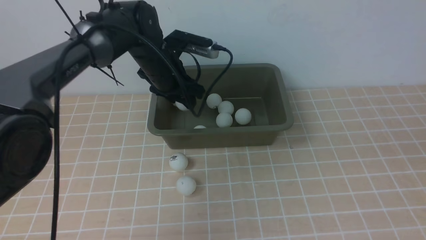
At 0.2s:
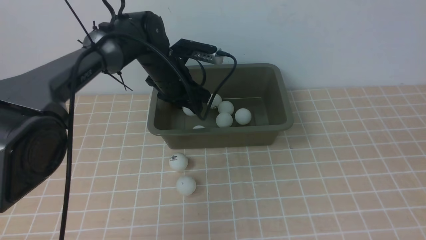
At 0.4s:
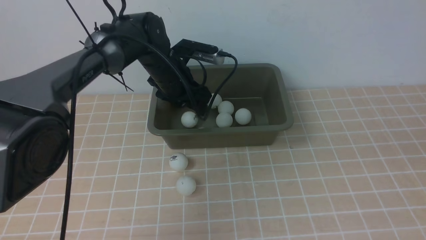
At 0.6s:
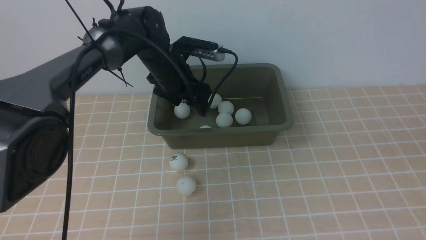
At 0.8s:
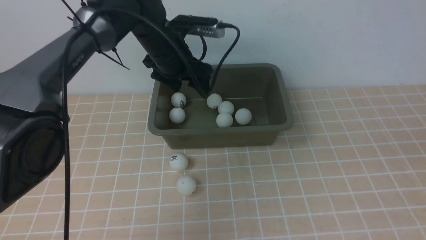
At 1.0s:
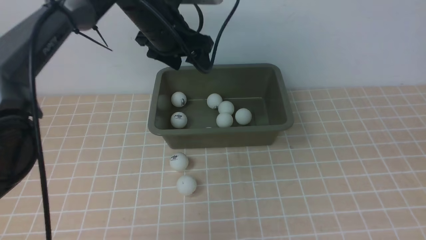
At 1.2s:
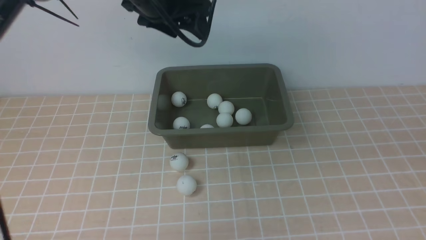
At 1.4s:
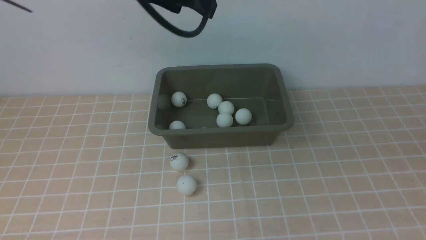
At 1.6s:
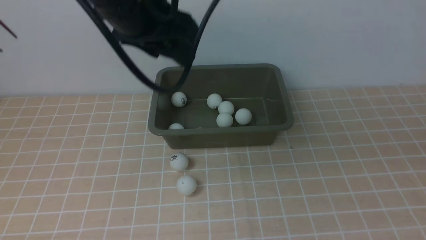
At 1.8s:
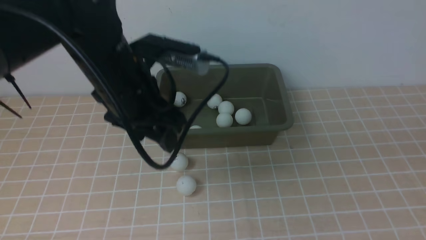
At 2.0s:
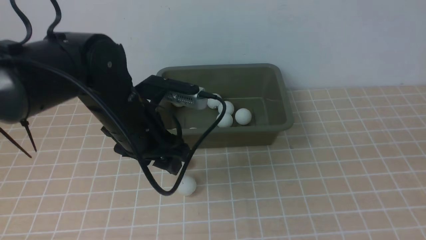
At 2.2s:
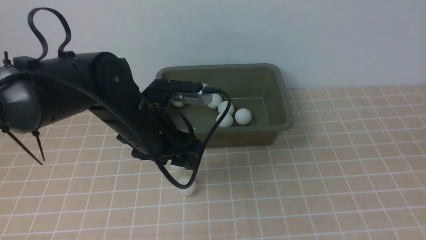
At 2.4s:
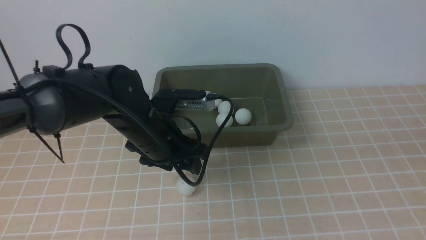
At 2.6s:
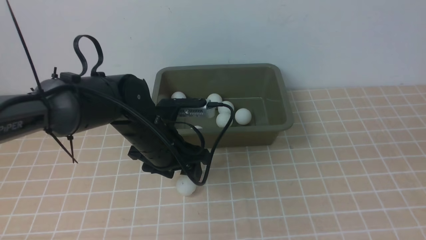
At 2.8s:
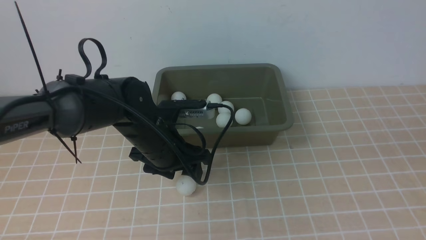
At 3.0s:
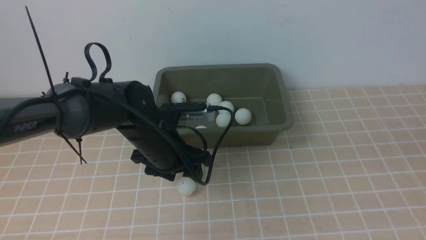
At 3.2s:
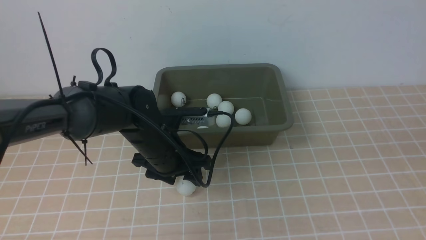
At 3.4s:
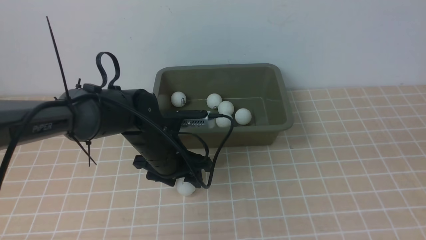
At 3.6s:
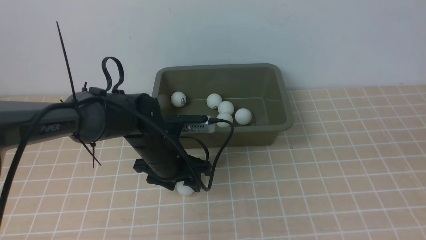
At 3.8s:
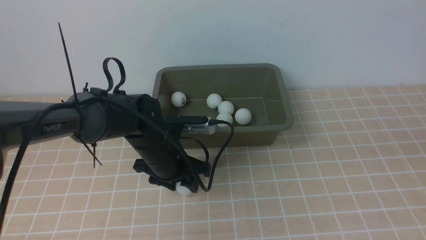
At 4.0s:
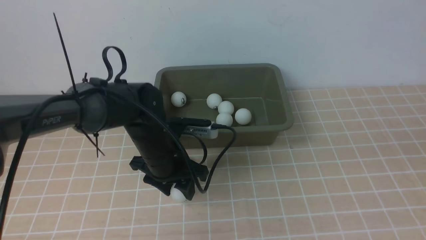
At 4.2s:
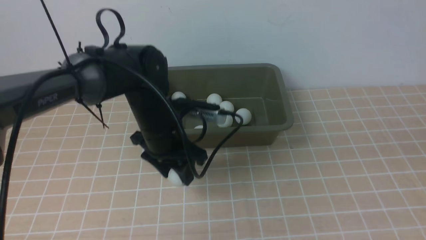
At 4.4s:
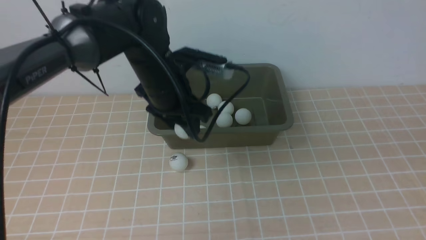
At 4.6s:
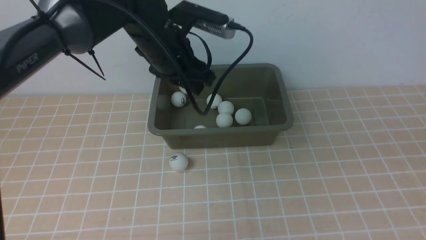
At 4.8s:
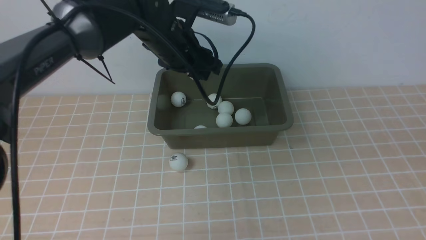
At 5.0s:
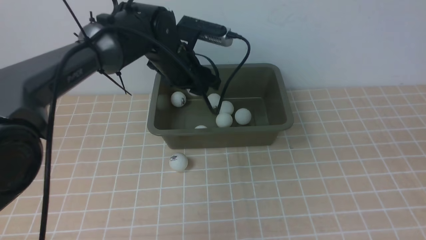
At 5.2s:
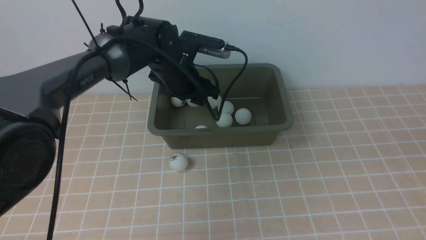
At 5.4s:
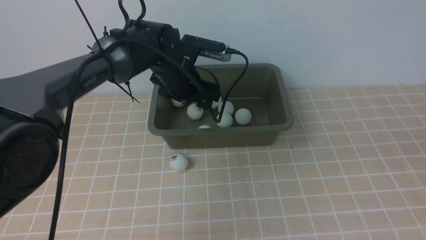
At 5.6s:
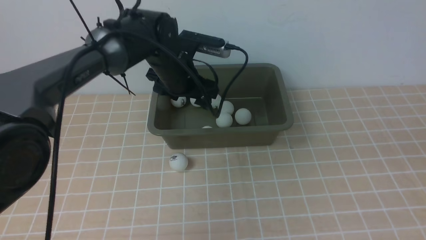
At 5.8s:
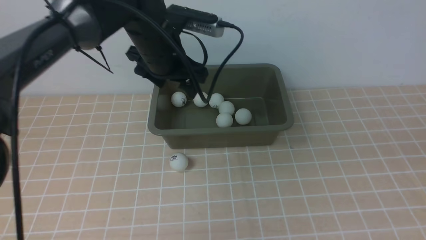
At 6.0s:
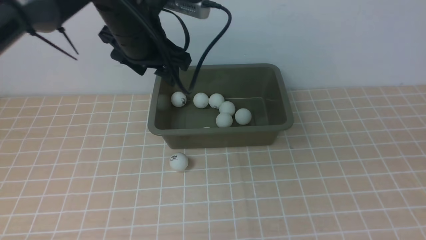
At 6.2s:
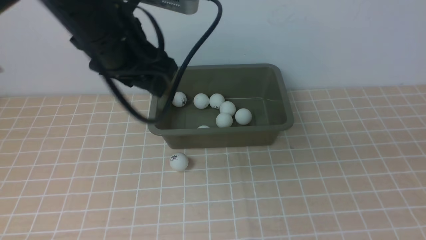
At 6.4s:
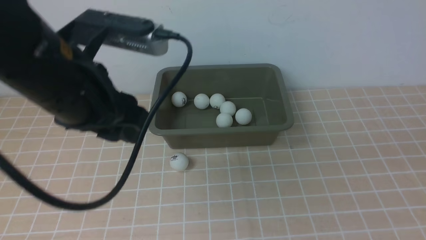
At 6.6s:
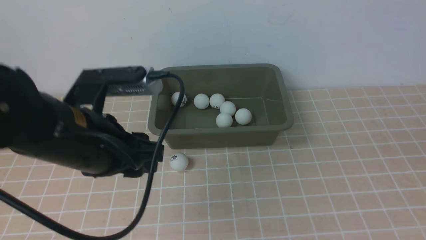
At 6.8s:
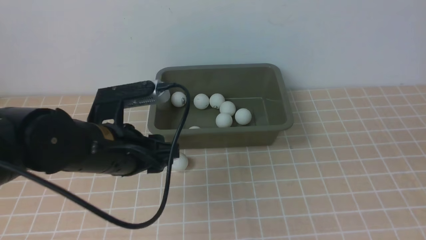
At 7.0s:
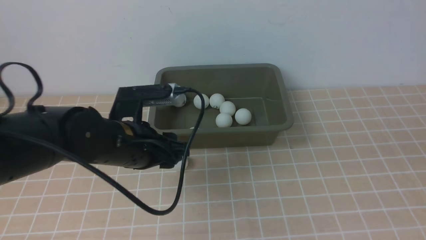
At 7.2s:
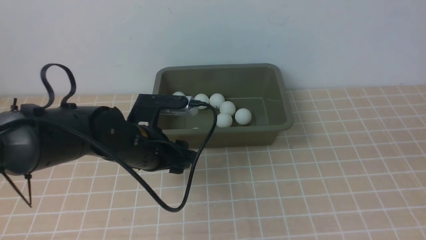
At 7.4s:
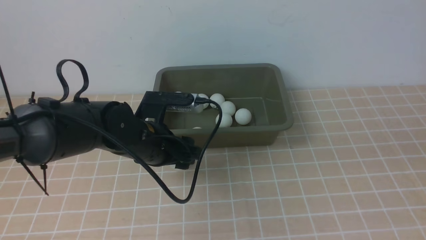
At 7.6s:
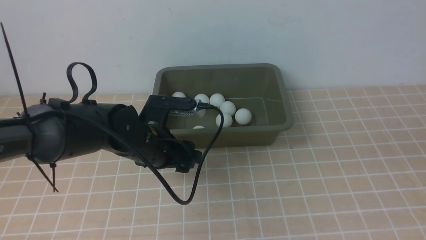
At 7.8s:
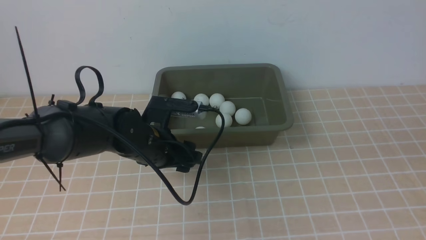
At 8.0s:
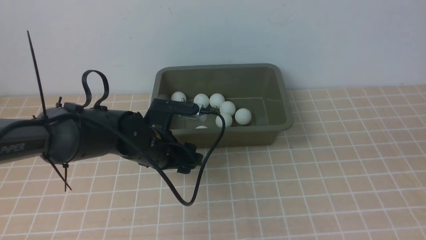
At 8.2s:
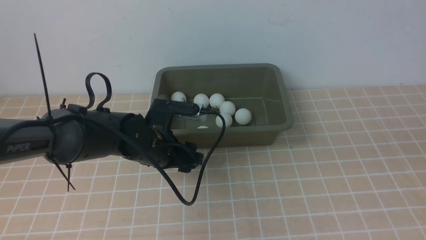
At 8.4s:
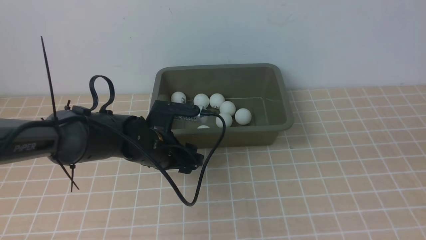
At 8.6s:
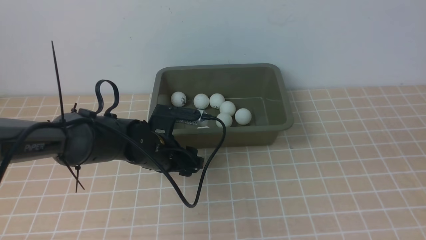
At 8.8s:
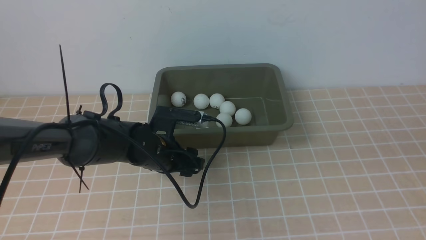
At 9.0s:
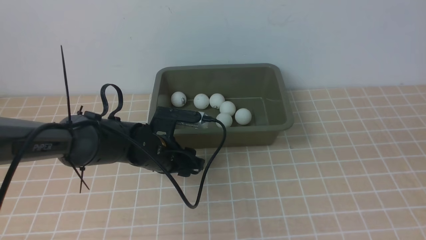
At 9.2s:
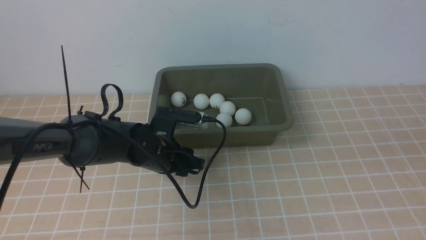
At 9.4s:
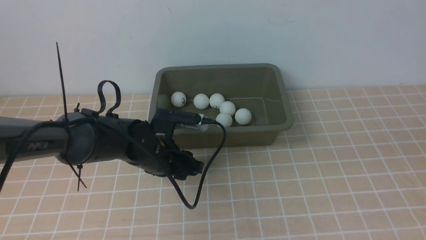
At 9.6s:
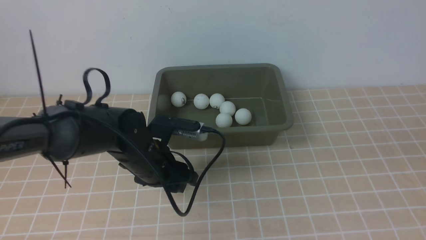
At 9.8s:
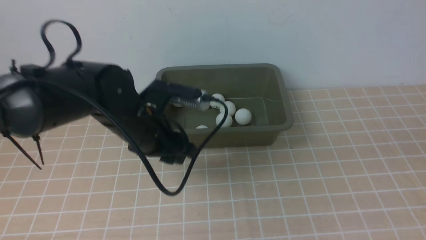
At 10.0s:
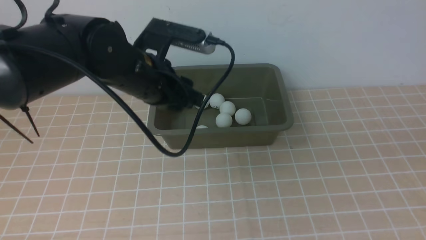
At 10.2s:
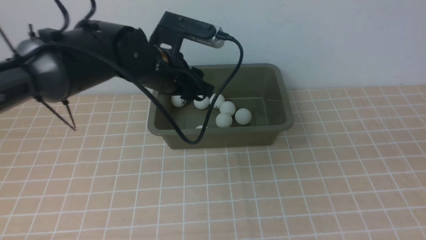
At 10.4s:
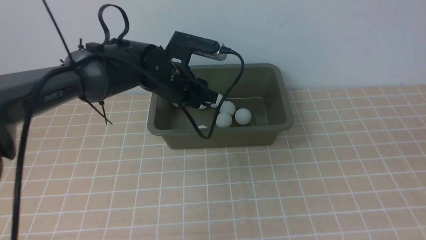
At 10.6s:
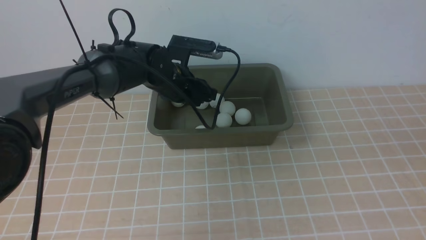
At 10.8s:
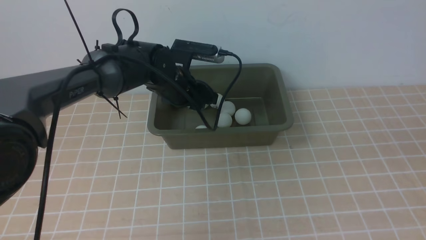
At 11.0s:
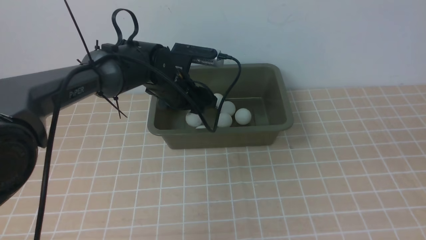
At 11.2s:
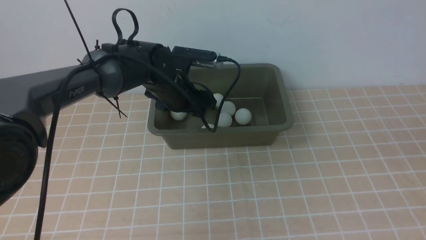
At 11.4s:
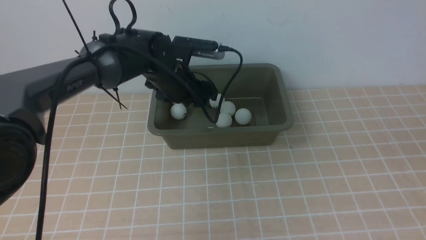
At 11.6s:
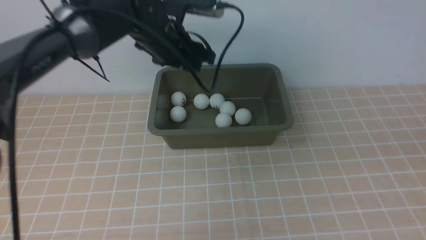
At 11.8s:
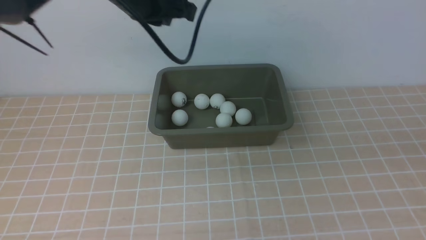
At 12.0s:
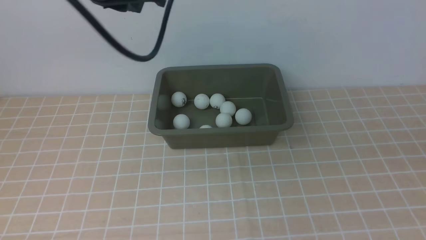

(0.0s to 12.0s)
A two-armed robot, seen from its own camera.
Step, 0.8s - 4.2s: use the left arm to clamp the table tennis ball closest to it.
Step, 4.4s - 5.6s: use the left arm to put the table tennis ball into the box.
Step, 5.8s - 9.6s: use the left arm to clamp the table tennis ball closest to it.
Step, 9.8s - 11.6s: use the left arm to put the table tennis ball into the box.
0.0s - 1.6s: The left gripper shifts about 20 cm upward and backward.
1.6s - 3.0s: The left gripper heads downward, covering about 25 cm.
3.0s - 4.4s: The left gripper goes roughly 5 cm upward.
4.4s - 6.0s: The left gripper moves up and down over roughly 10 cm, changing direction 2 times.
6.0s - 7.6s: The left gripper travels downward and backward by some 15 cm.
7.6s - 9.0s: The left gripper moves roughly 5 cm.
9.0s - 10.4s: The left gripper moves upward and forward, some 15 cm.
10.4s - 12.0s: The left gripper travels upward by approximately 15 cm, and closes.

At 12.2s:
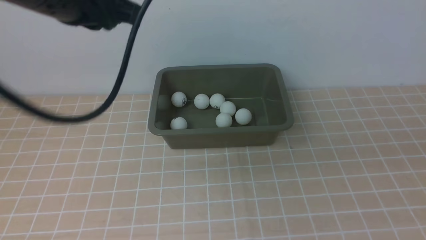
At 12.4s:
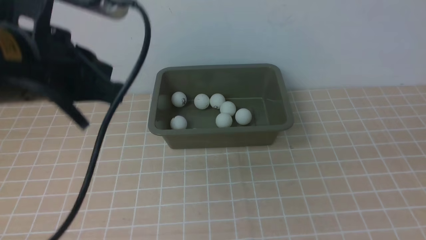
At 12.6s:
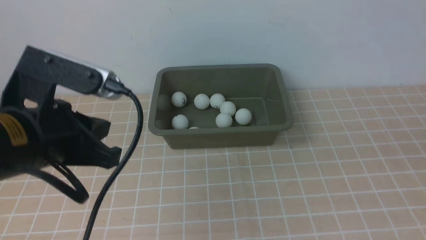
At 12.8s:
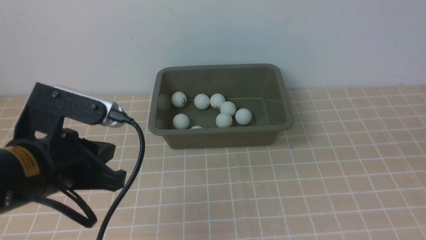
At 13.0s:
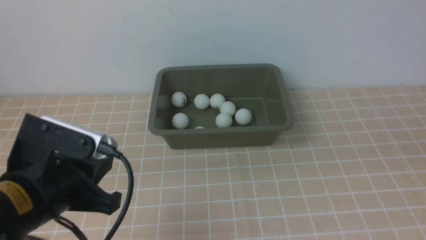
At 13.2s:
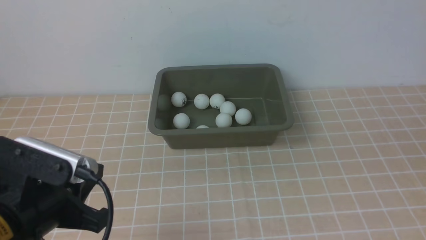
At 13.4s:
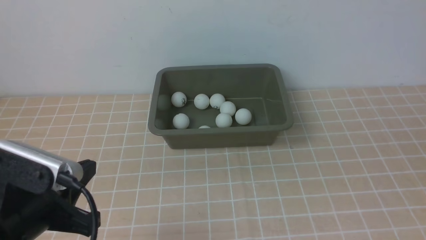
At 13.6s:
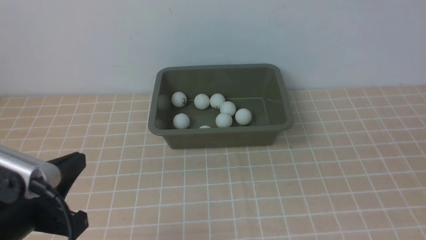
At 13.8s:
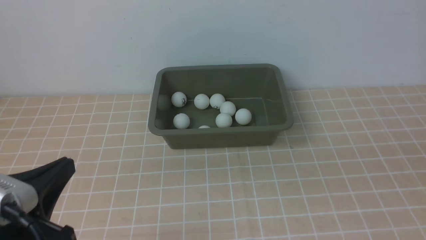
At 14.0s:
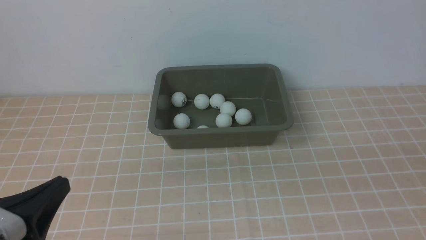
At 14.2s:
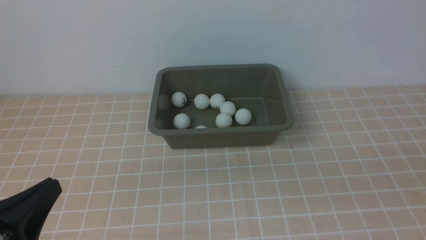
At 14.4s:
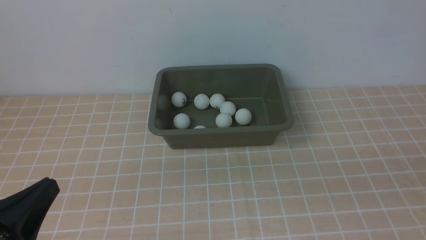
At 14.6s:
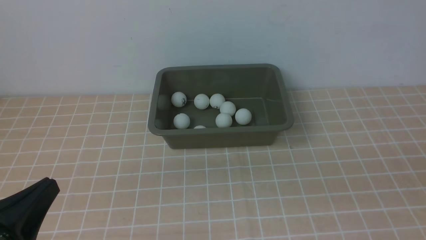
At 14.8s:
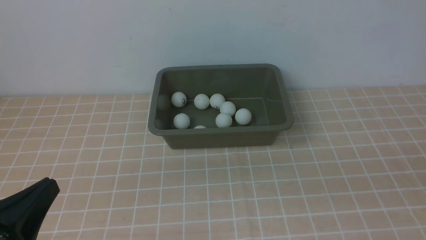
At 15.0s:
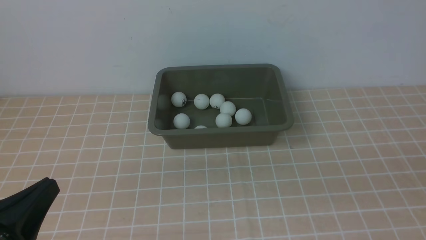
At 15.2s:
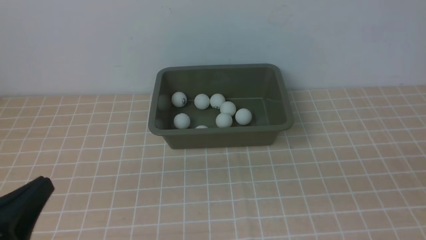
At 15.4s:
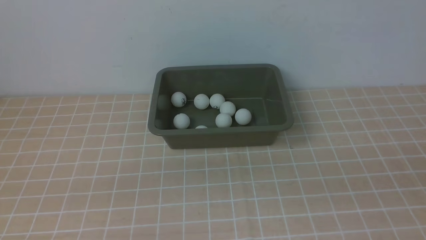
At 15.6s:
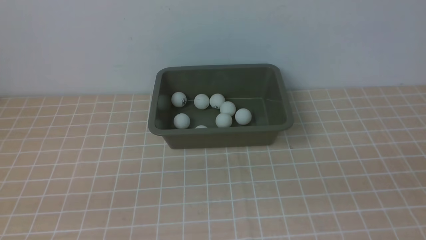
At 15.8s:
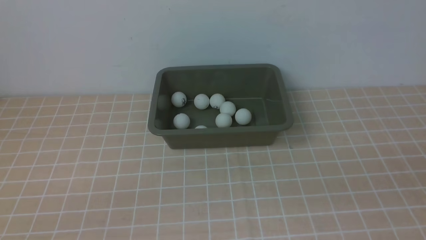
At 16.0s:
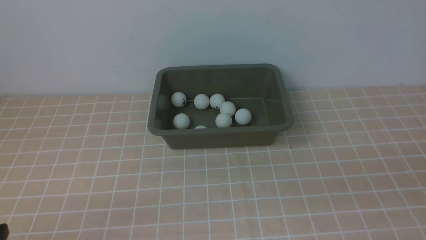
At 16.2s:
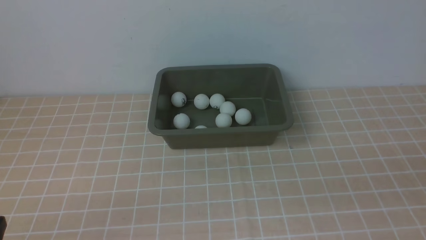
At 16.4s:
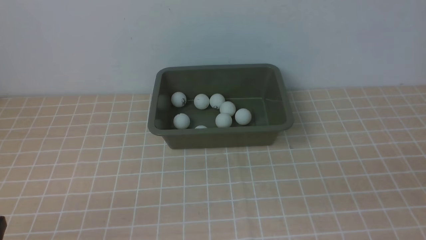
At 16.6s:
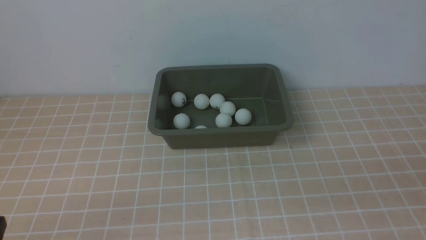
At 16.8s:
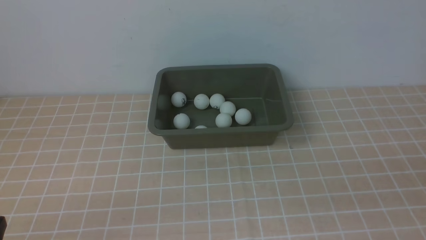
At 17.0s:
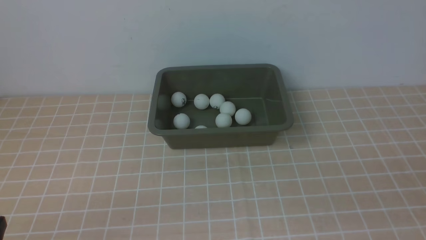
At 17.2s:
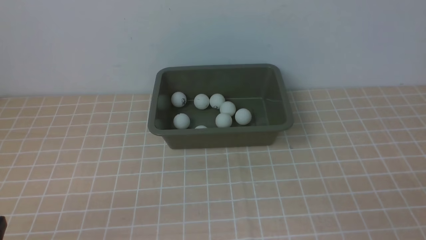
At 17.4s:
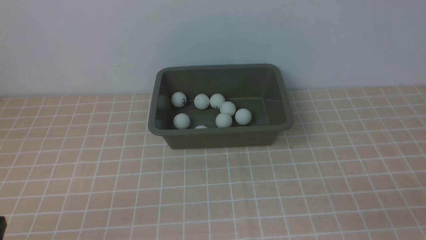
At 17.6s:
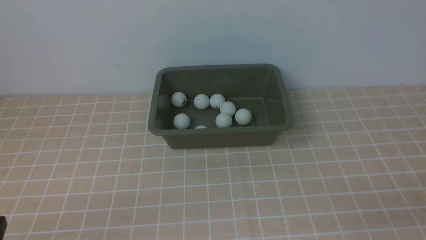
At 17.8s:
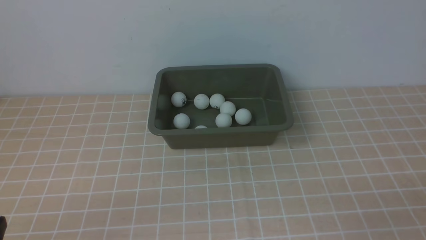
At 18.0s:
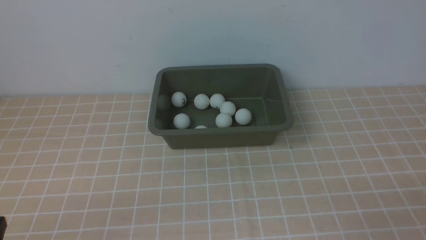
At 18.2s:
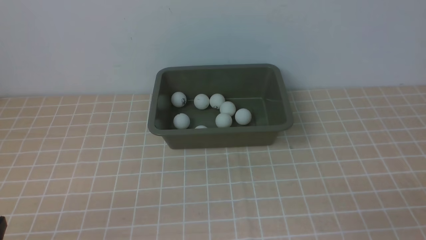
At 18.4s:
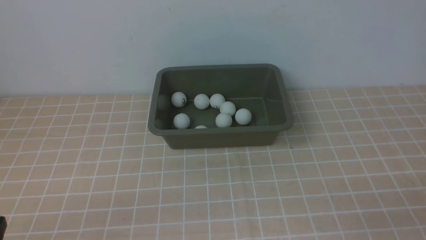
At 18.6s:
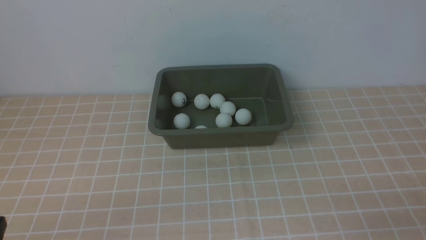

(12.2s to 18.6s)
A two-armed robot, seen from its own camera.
12.2s - 13.8s: The left gripper heads backward and downward, covering some 25 cm.
13.8s - 15.4s: The left gripper ends up some 5 cm from where it was.
